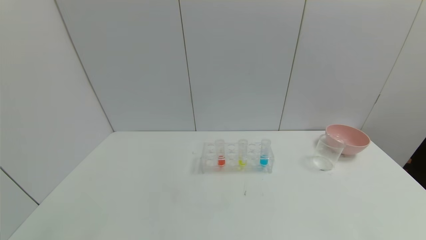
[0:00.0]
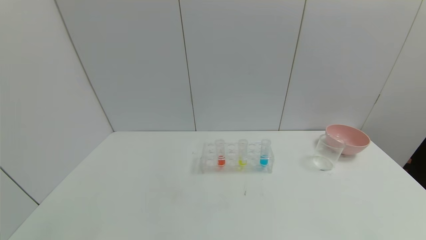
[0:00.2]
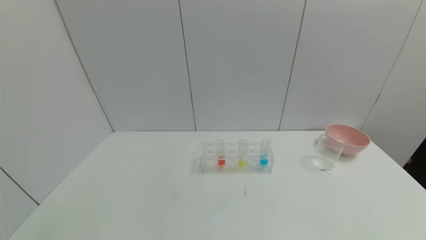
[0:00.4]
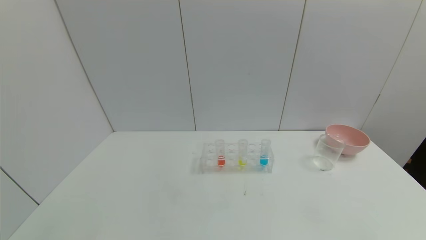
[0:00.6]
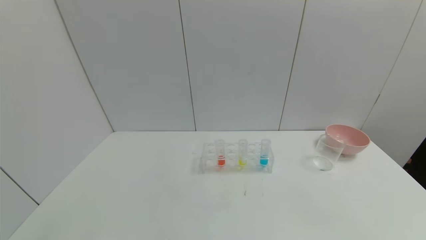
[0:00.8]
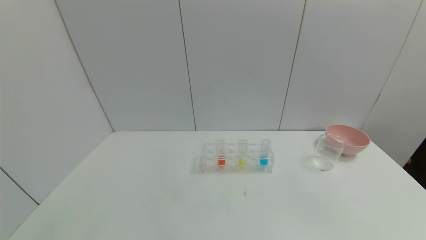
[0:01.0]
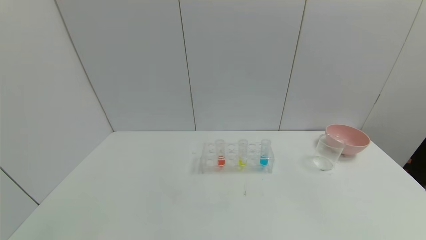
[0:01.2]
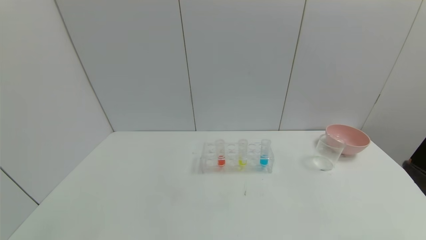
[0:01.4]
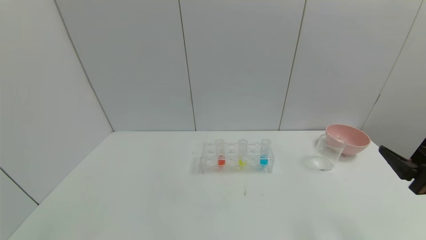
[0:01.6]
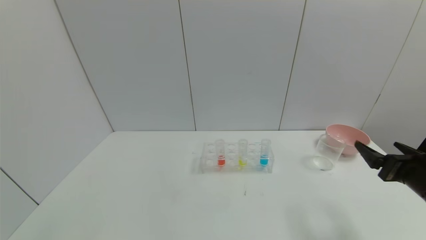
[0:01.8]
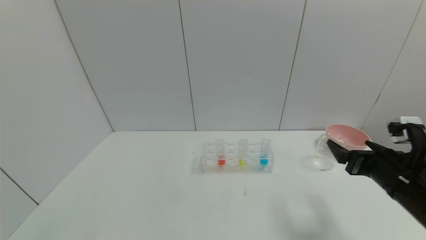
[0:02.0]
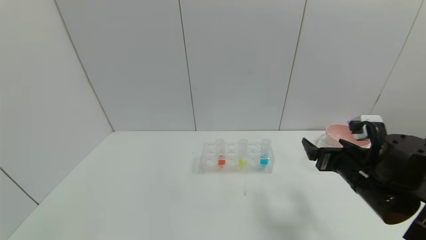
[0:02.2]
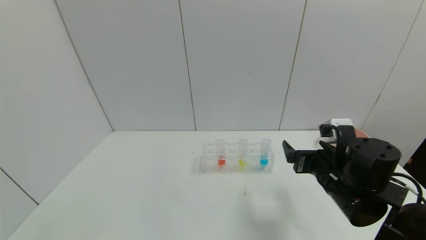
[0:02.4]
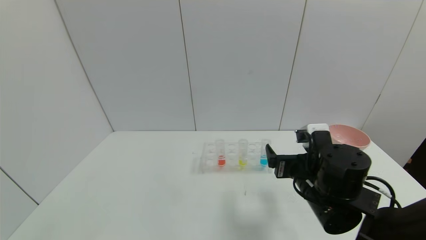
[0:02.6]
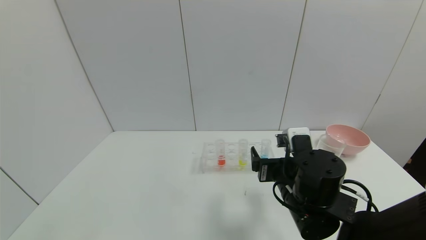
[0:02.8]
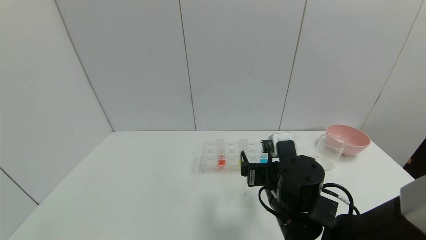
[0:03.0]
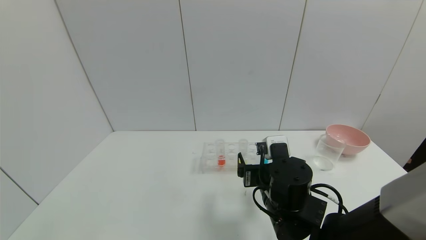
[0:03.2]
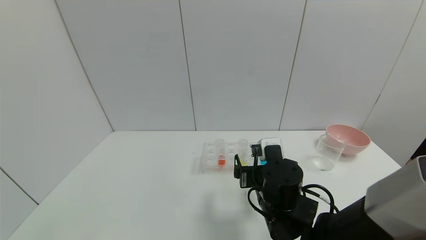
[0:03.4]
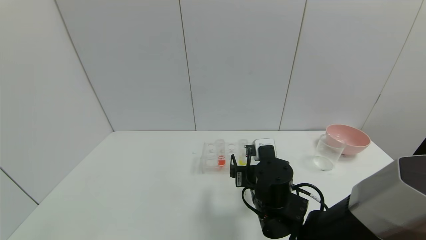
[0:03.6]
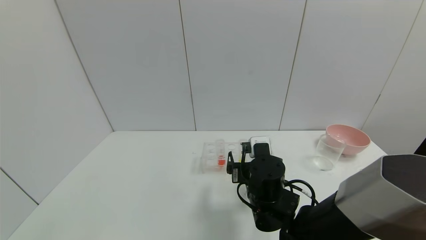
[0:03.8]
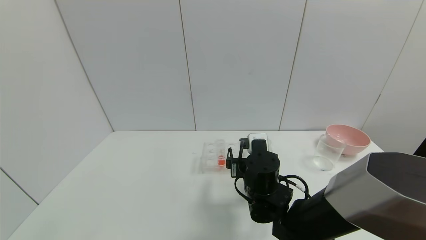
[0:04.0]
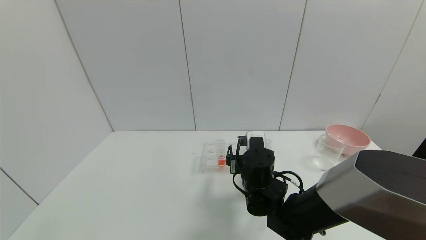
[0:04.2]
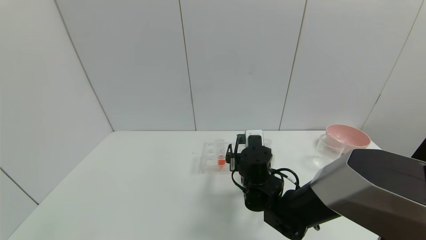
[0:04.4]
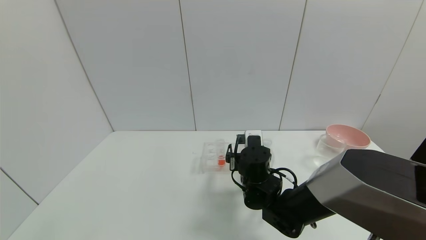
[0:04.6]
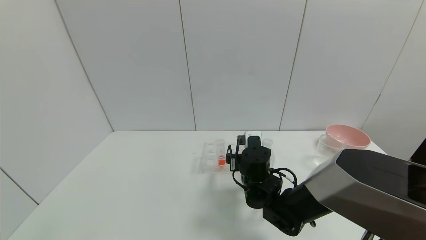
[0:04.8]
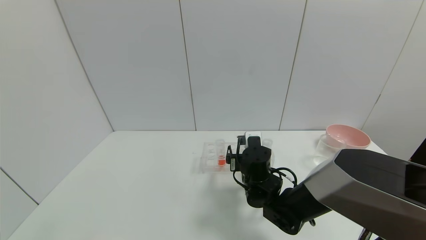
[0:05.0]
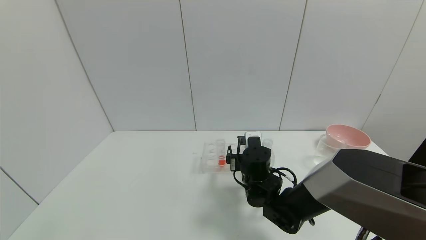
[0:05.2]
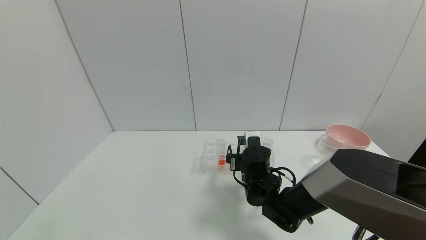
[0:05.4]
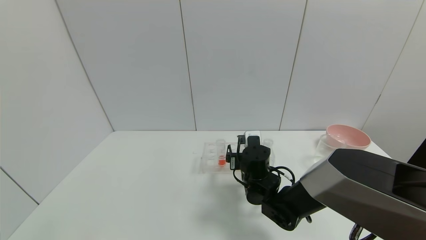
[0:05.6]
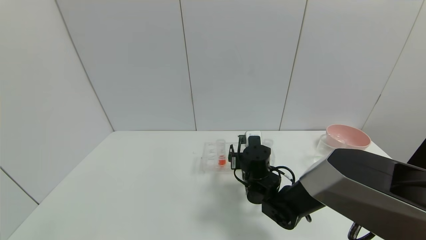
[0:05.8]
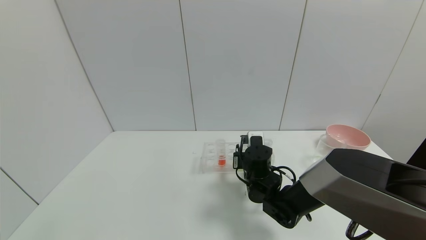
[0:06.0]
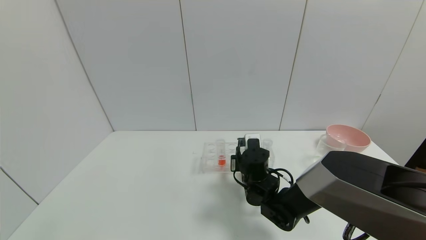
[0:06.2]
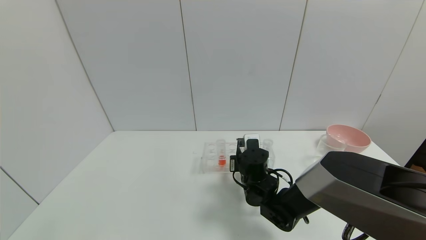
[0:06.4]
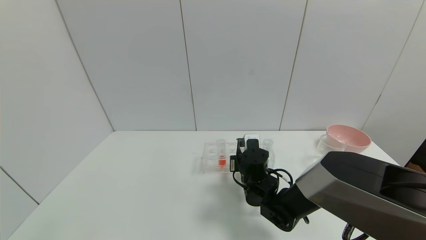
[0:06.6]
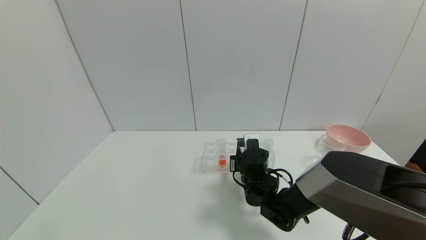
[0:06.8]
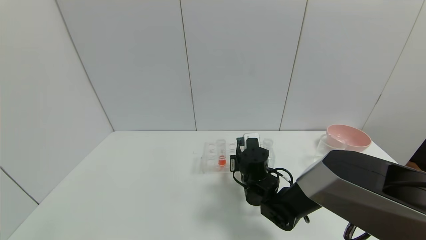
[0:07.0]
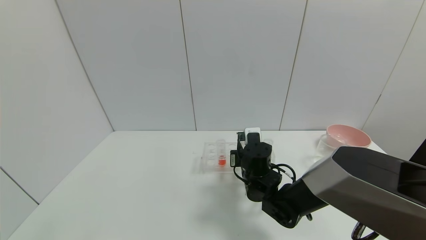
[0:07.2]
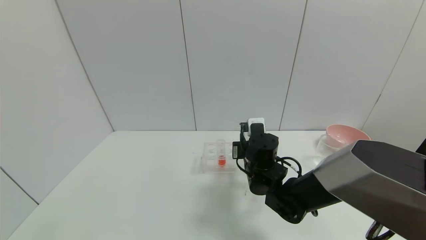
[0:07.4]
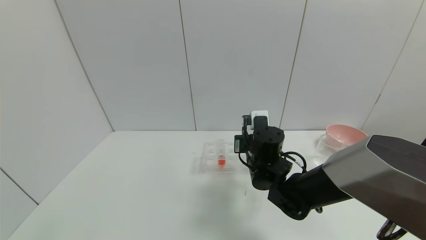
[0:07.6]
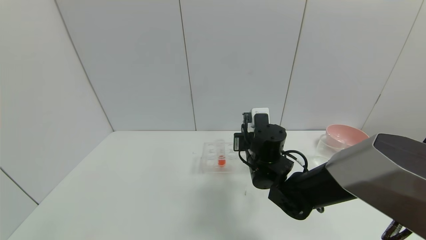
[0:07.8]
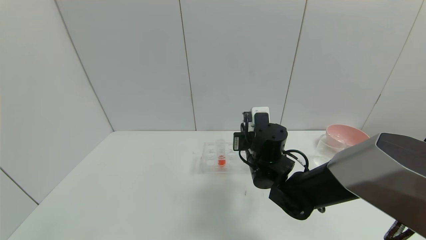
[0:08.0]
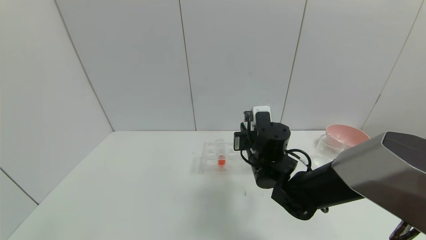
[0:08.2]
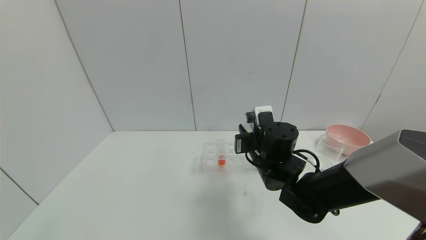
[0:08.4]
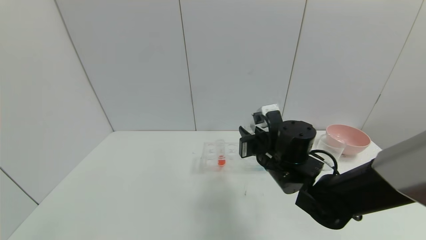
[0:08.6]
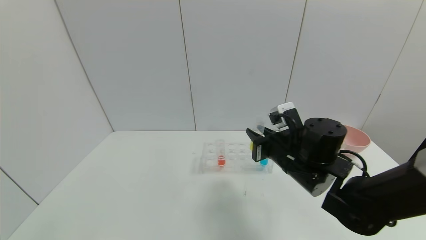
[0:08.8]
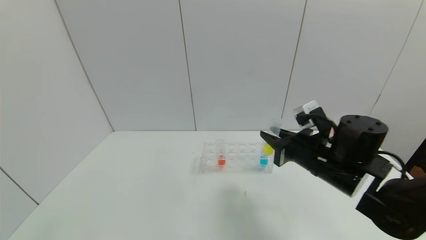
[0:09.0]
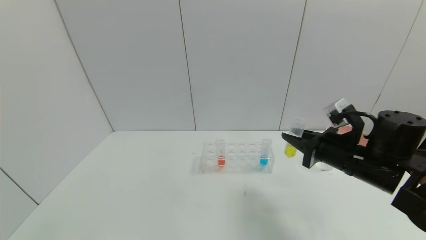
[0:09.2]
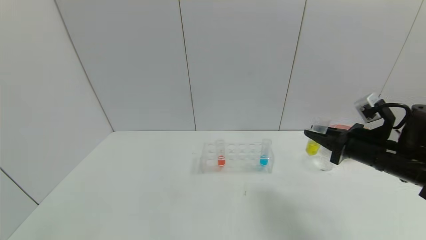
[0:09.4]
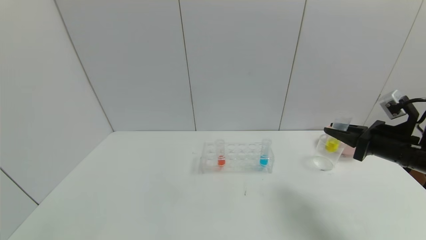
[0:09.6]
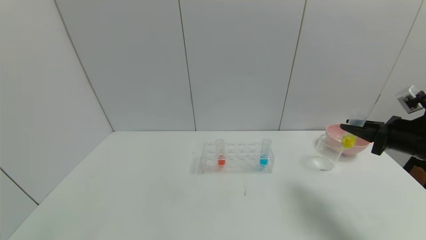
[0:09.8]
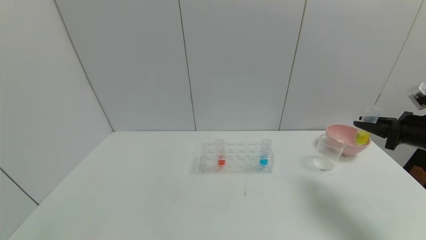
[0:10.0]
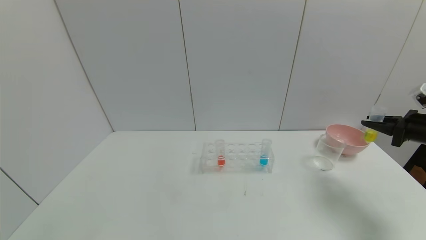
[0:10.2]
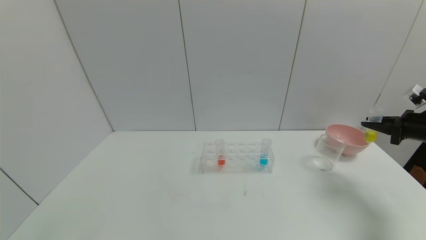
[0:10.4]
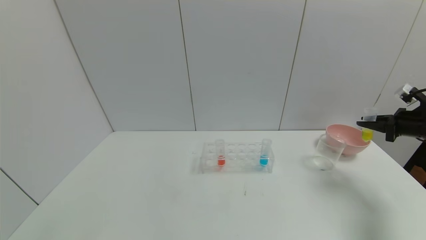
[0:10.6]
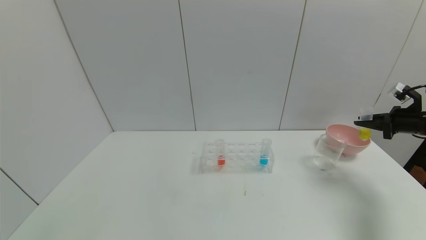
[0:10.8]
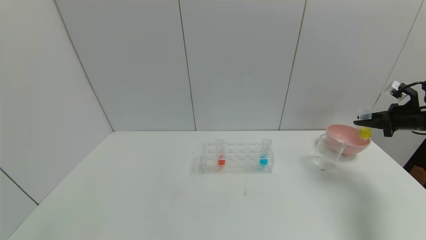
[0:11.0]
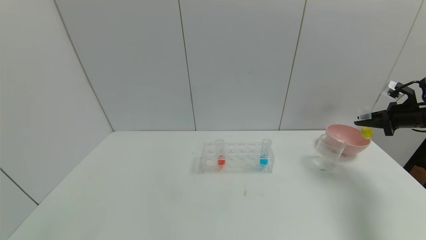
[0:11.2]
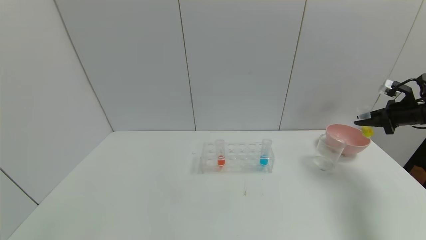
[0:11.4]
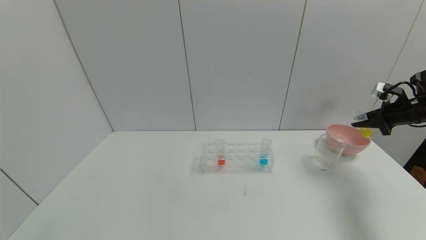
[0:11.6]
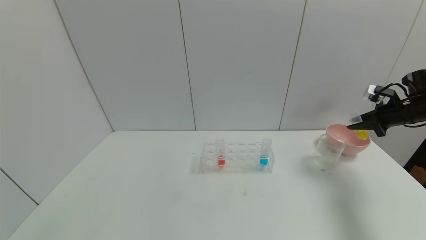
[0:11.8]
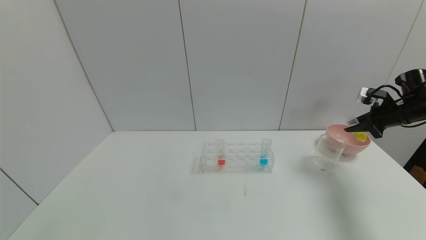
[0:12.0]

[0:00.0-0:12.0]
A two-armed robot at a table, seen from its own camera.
Task of the whole recording: pick up the test tube with yellow pigment and the test tube with blue pigment by grippers and pour them into the beaker.
Step, 0.0 to 6.2 s: Grasp the yellow reagent with the right gripper.
0.0 to 1.6 s: The right gripper travels forward and upward by about 20 cm.
1.6 to 3.0 s: The right gripper goes roughly 25 cm to the left.
3.0 to 4.4 s: The right gripper moves forward, roughly 10 cm.
4.4 to 6.0 s: The right gripper closes.
6.0 to 7.6 s: The right gripper heads upward, covering some 5 cm, and closes.
7.6 to 9.0 s: The right gripper shifts roughly 15 cm to the right and backward.
9.0 to 10.4 s: The right gripper moves to the right, about 30 cm.
10.4 to 12.0 s: The right gripper heads forward, covering roughly 5 cm.

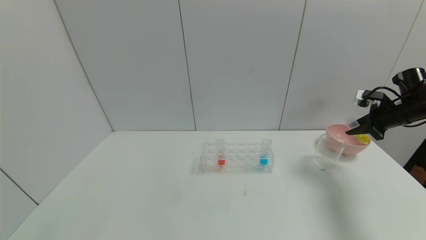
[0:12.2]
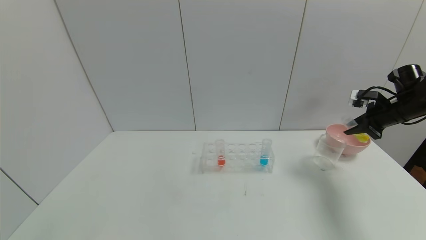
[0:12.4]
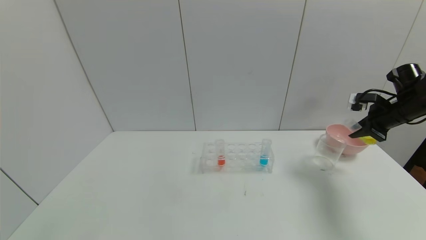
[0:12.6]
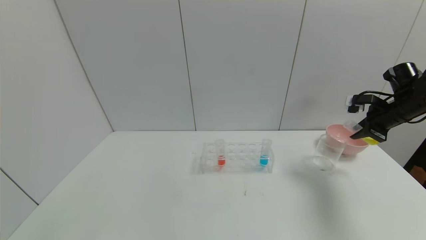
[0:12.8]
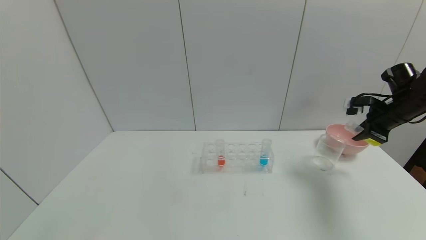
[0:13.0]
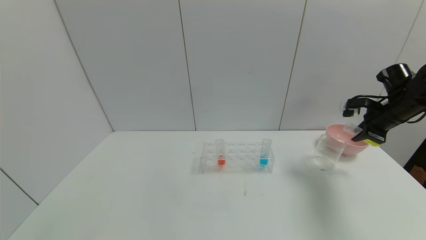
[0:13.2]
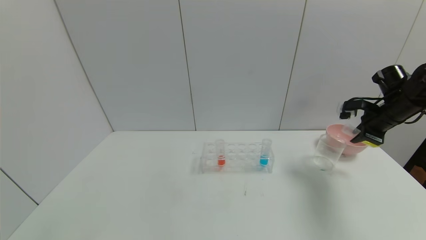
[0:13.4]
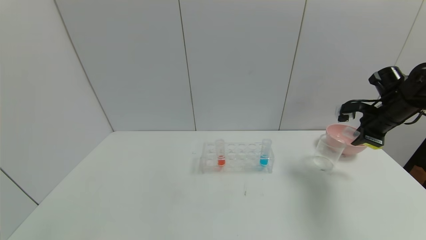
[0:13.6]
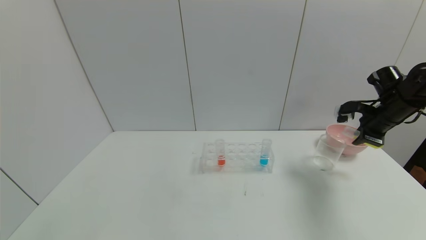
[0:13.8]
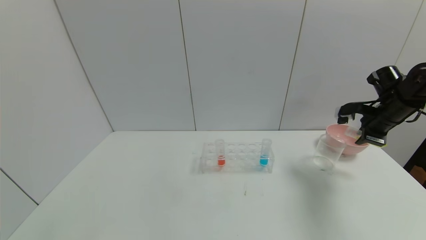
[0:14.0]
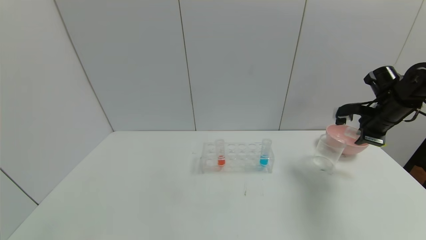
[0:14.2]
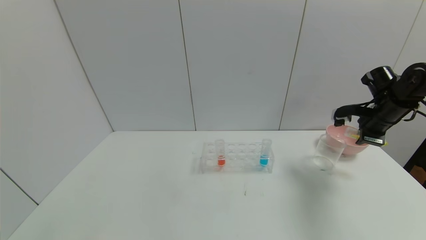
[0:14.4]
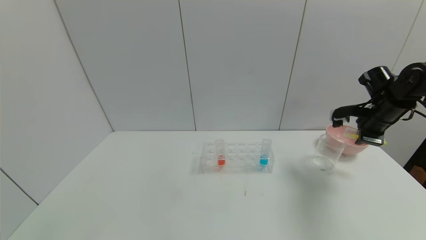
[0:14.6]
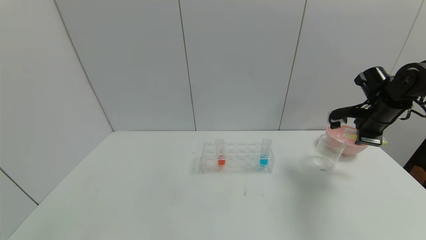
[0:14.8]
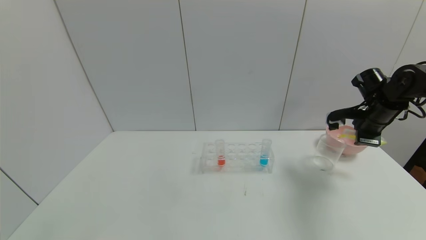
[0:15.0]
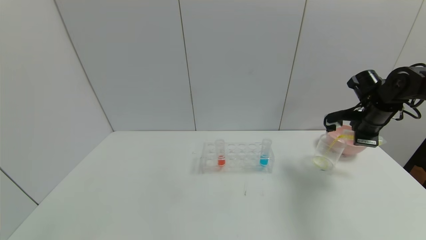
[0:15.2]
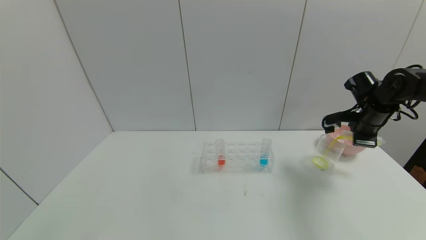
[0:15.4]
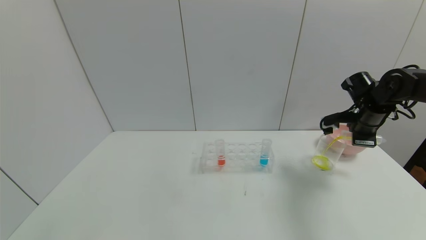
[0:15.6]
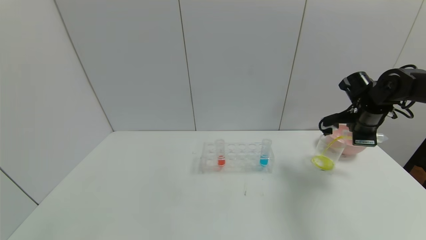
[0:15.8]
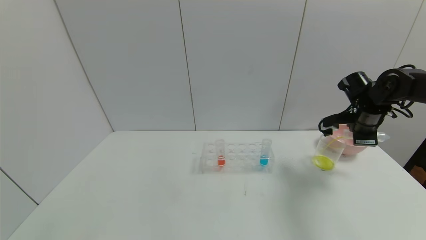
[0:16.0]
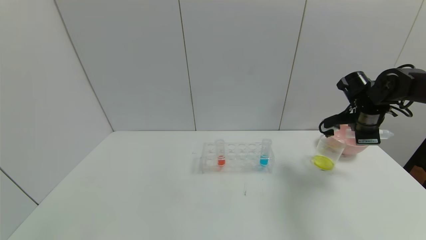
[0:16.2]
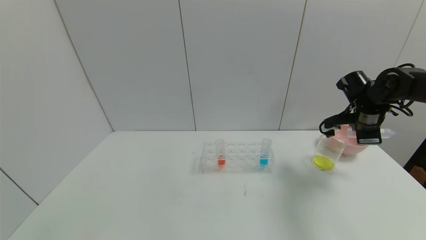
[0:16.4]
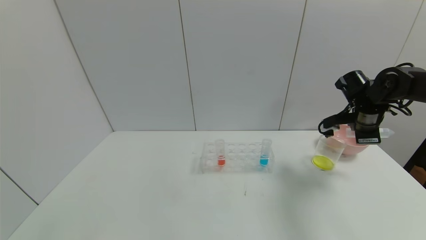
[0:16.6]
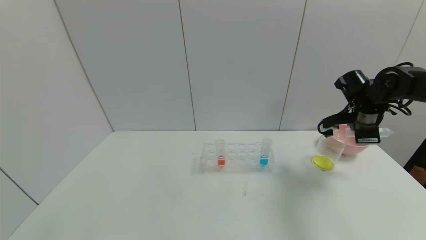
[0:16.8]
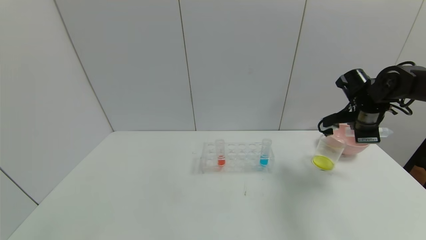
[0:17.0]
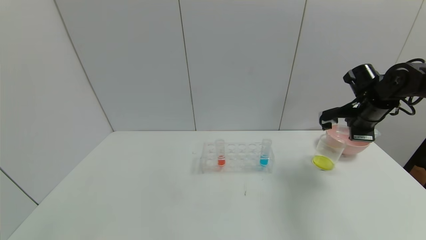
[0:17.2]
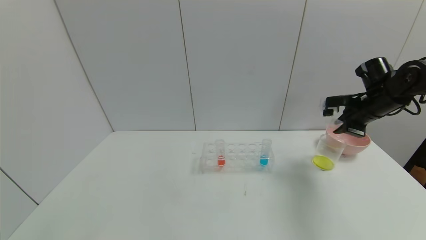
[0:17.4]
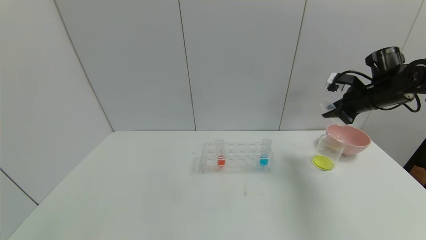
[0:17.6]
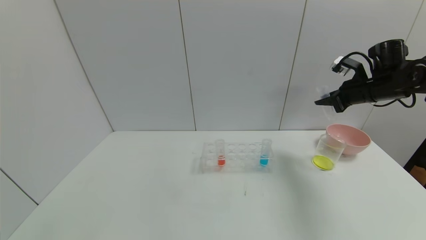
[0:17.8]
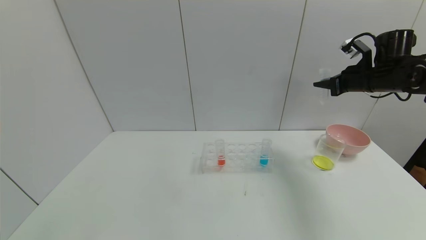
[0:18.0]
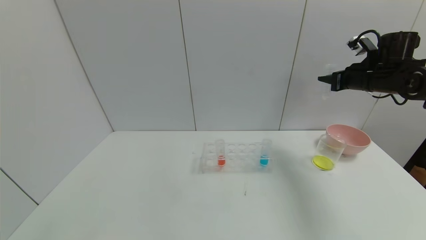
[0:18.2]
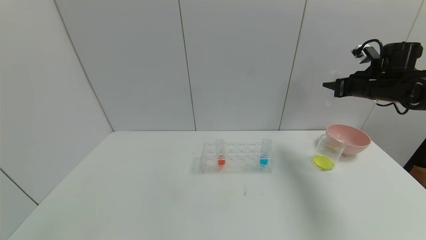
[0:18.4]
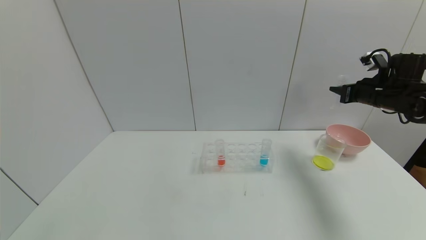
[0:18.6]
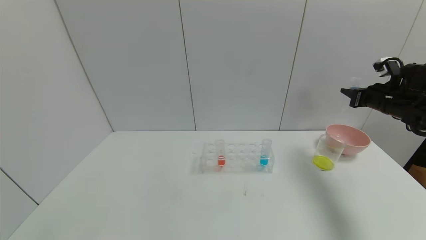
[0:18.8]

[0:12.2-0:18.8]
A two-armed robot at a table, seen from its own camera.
Task of the whole recording: pick up the test tube with yellow pigment and the test tube with blue pigment by grippers and pour them into the beaker.
Step, 12.2 to 16.6 s: Pour the yellow reagent into the graduated cylinder with the right gripper.
12.2 to 13.8 s: The right gripper travels to the left by some 5 cm.
13.8 to 15.4 s: There are only small adjustments of the grippers.
15.4 to 17.2 s: The grippers move only a little.
17.2 to 18.8 s: The right gripper moves to the right, some 10 cm.
